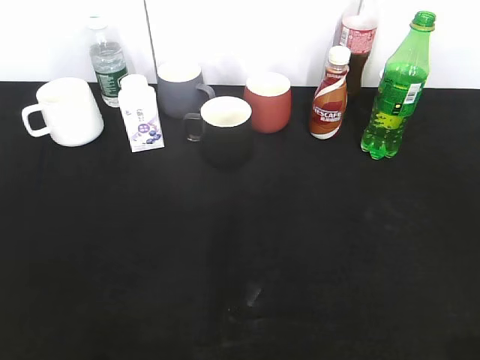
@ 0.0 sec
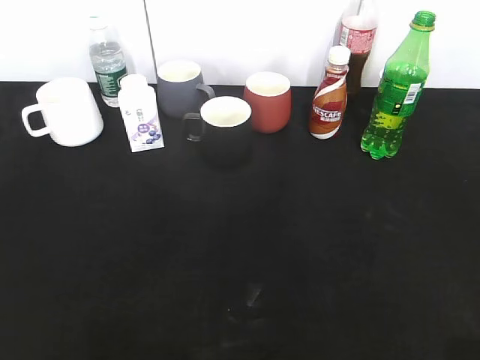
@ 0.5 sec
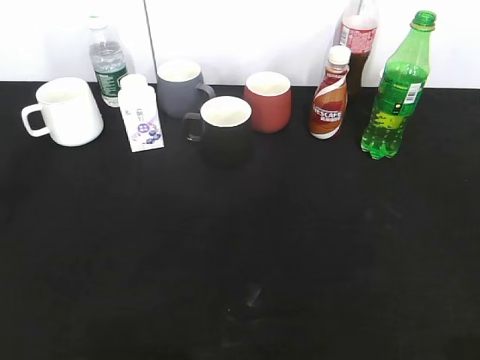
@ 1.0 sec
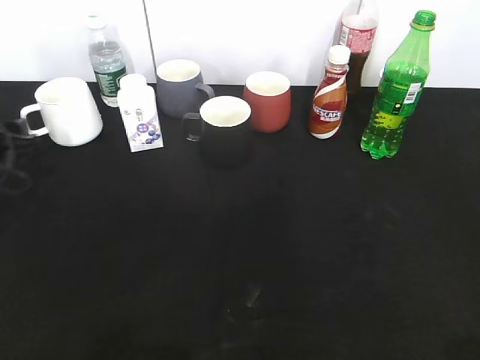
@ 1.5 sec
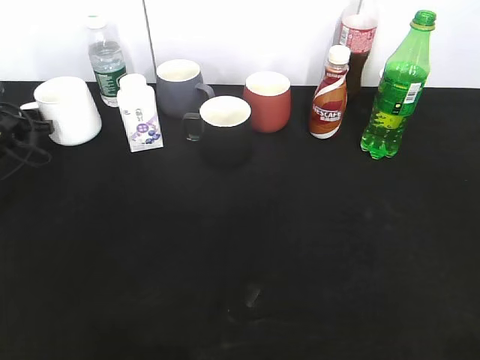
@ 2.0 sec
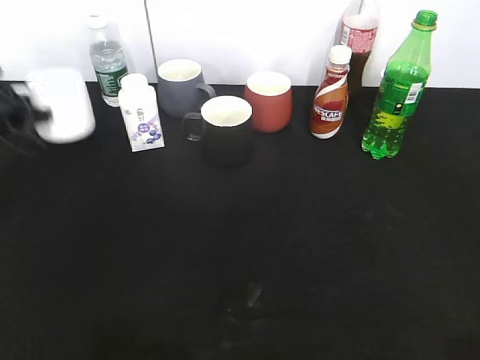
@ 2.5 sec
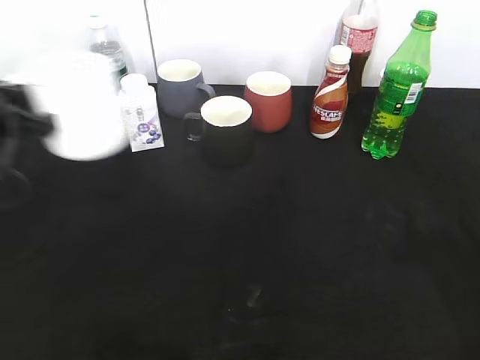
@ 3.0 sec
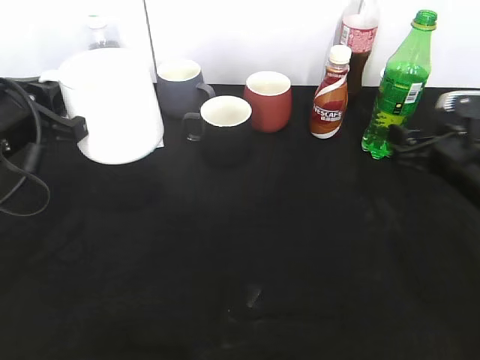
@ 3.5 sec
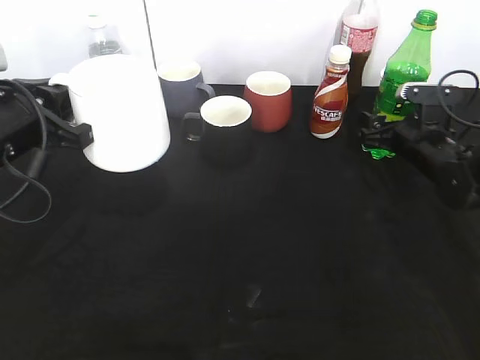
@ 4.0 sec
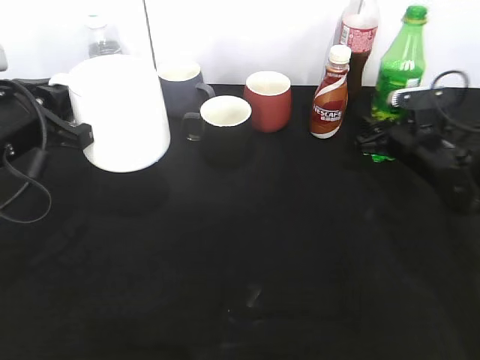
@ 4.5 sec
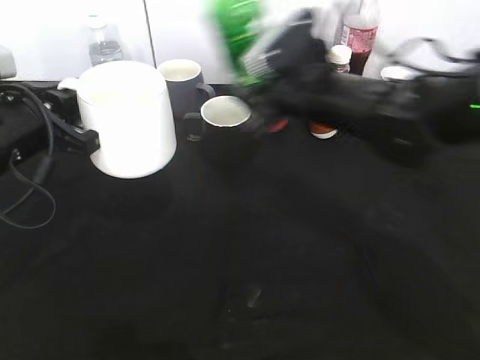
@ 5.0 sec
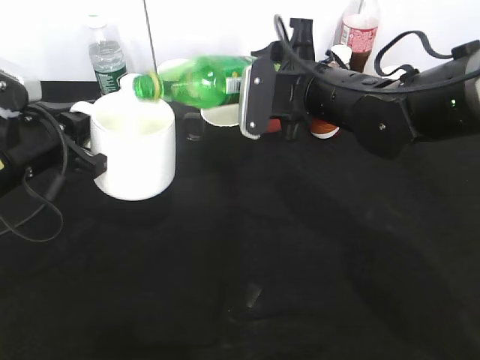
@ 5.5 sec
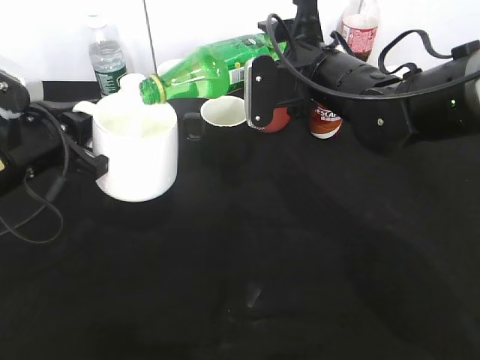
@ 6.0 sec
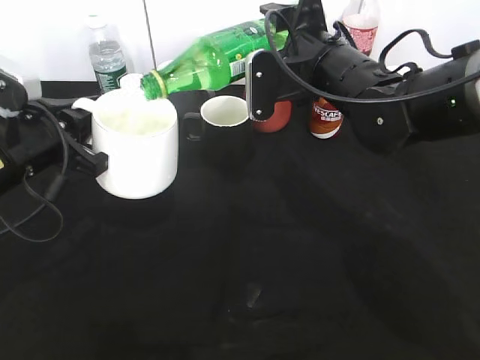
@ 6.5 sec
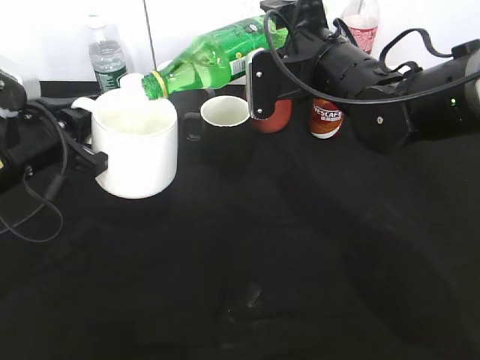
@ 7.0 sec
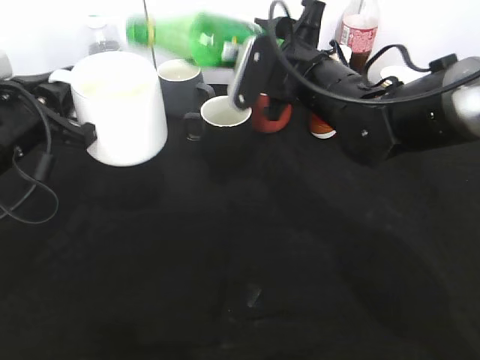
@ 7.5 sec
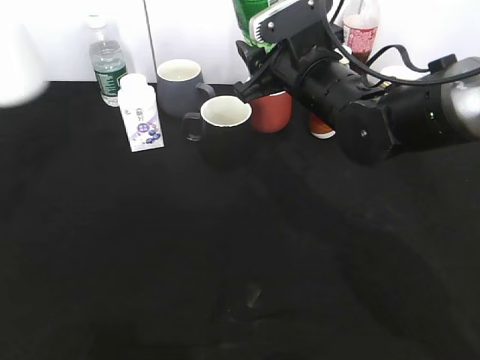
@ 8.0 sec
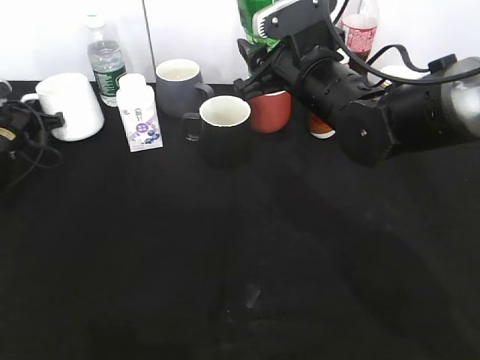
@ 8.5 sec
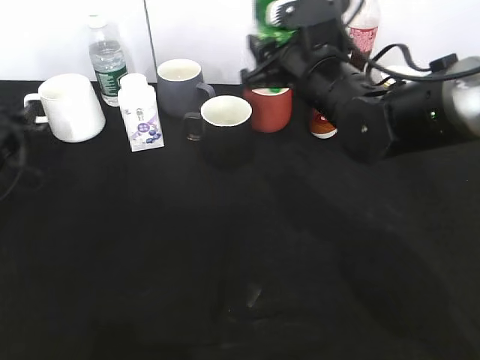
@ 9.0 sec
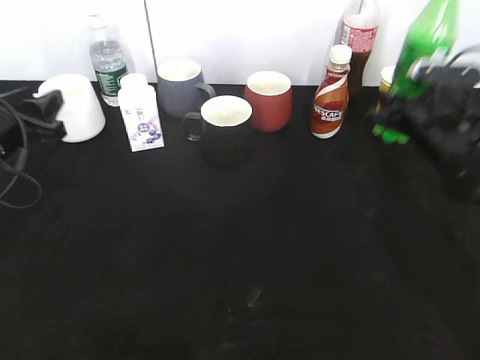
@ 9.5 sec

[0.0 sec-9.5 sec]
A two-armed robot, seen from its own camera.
Step, 0.0 sec to 2.0 sec: Grasp the white cup with left gripper.
Step, 2.5 sec to 3.0 sec: Lift the white cup with left gripper.
Step, 3.5 sec to 4.0 sec: Grasp the bottle with sprite with right gripper.
Step, 4.5 sec to 7.5 sec: Pour the sprite from bottle to cup with right gripper.
Step, 8.0 sec to 8.5 sec: Place the white cup on the table with left gripper.
0.0 sec to 2.0 sec: The left gripper moves forward and downward, approximately 50 cm.
2.0 sec to 4.0 sec: The right gripper heads forward and downward, covering some 50 cm. Meanwhile the left gripper moves backward, upward and to the right, some 25 cm, and closes.
4.0 sec to 5.5 sec: The right gripper moves to the left and upward, approximately 20 cm, and closes.
7.5 sec to 9.5 sec: The right gripper shifts some 20 cm to the right and downward. The left gripper is displaced to the left by about 5 cm, reaches approximately 20 cm forward, then returns, and opens.

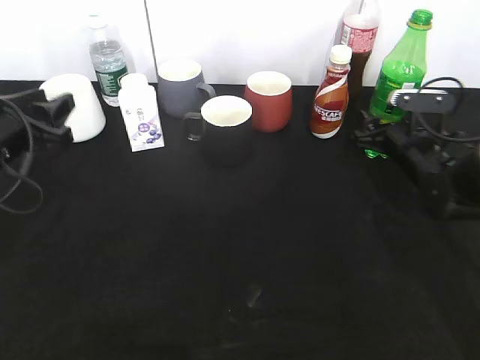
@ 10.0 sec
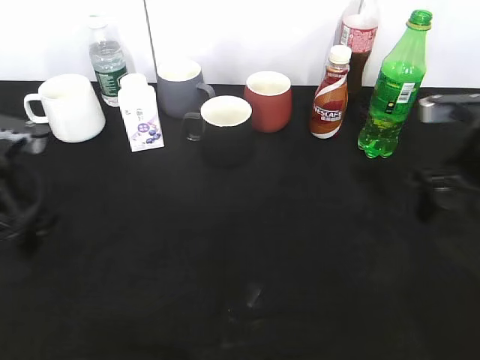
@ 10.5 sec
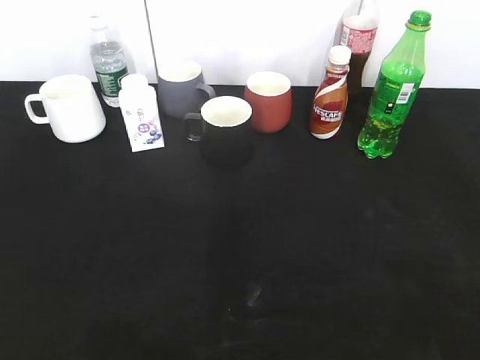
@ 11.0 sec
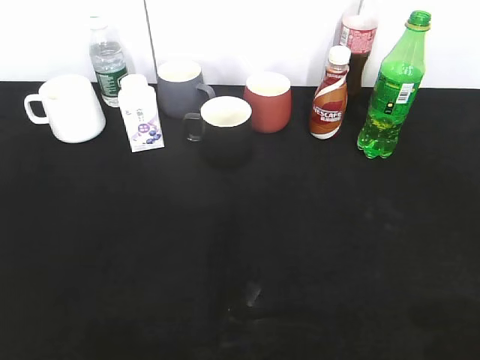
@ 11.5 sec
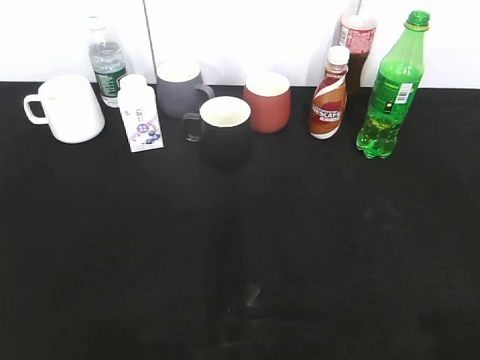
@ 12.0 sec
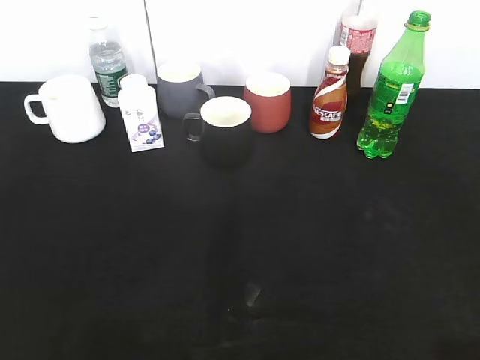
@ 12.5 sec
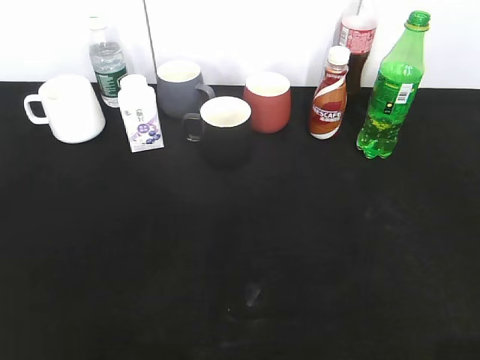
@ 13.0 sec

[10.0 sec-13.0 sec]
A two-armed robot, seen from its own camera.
10.0 sec to 11.5 sec: The grippers both shift backward and upward by approximately 35 cm.

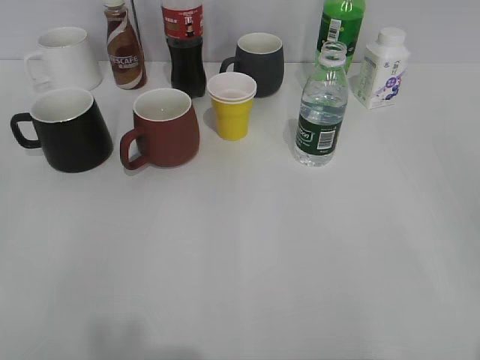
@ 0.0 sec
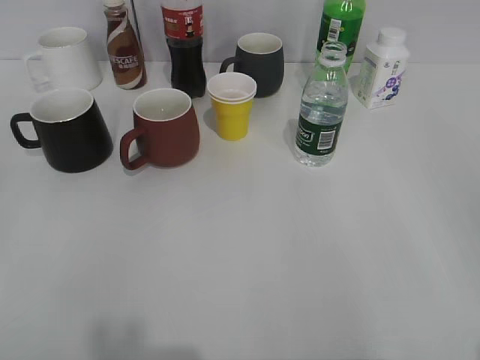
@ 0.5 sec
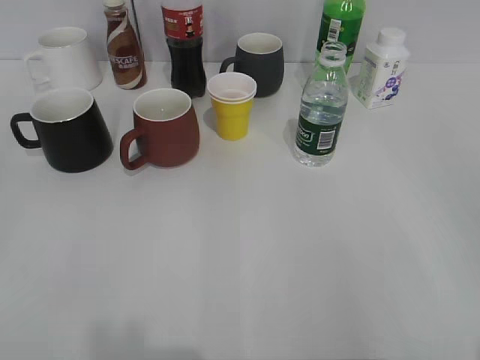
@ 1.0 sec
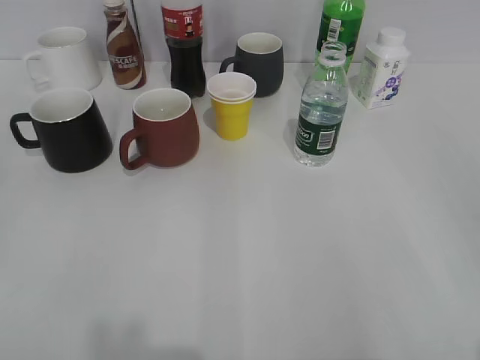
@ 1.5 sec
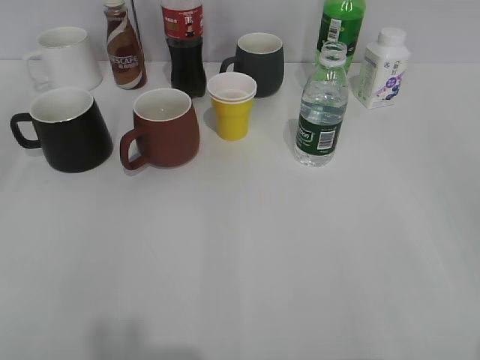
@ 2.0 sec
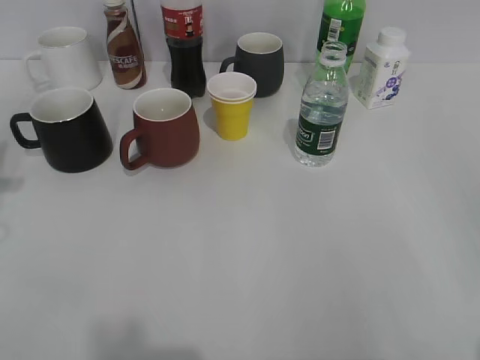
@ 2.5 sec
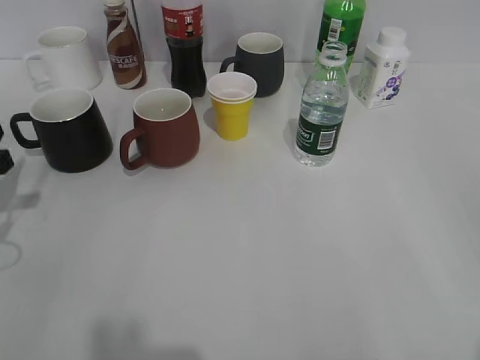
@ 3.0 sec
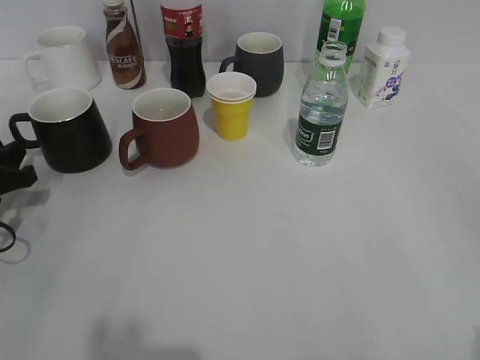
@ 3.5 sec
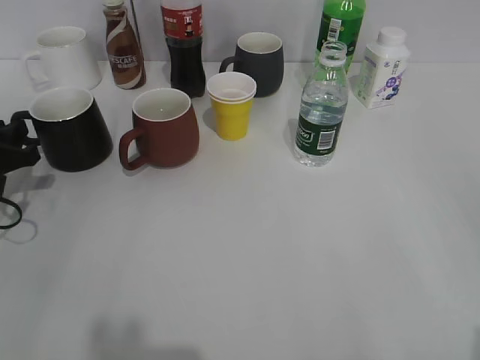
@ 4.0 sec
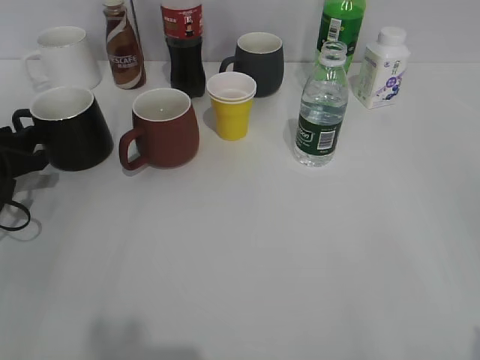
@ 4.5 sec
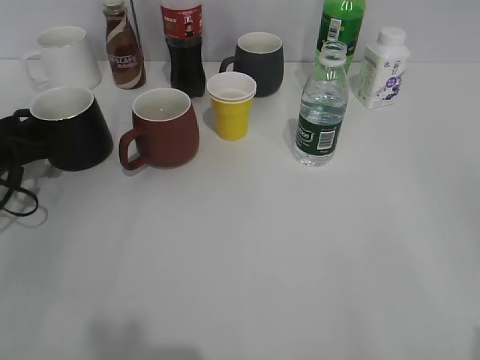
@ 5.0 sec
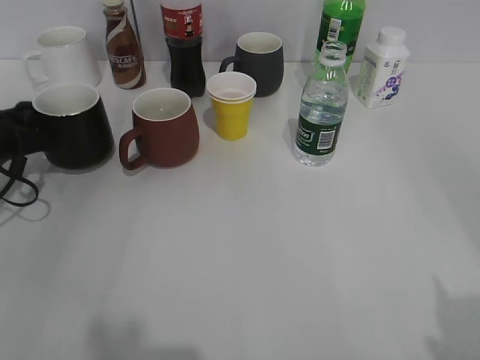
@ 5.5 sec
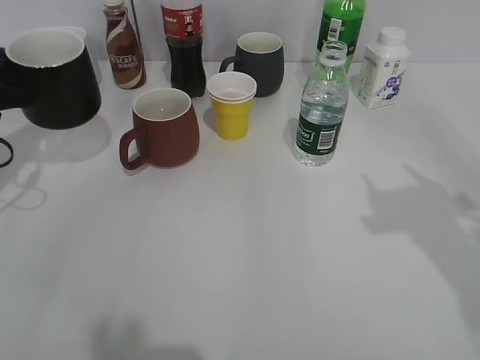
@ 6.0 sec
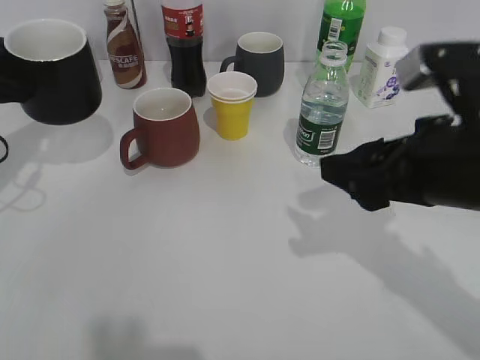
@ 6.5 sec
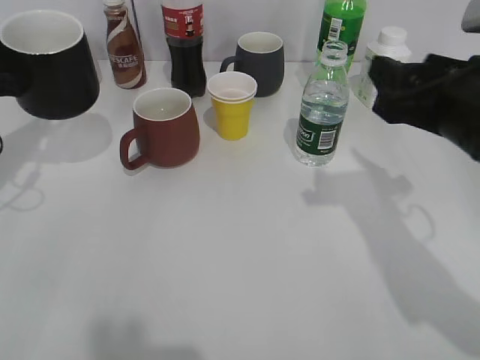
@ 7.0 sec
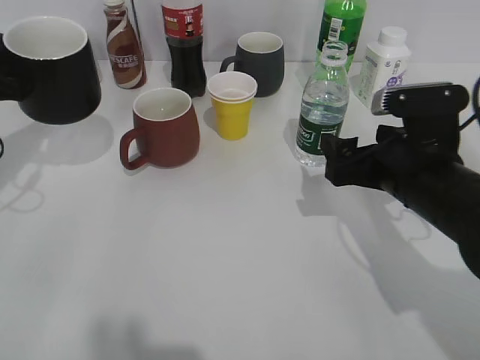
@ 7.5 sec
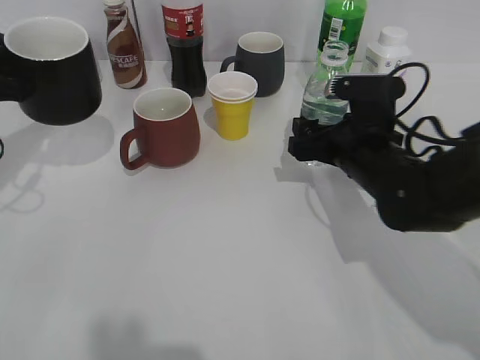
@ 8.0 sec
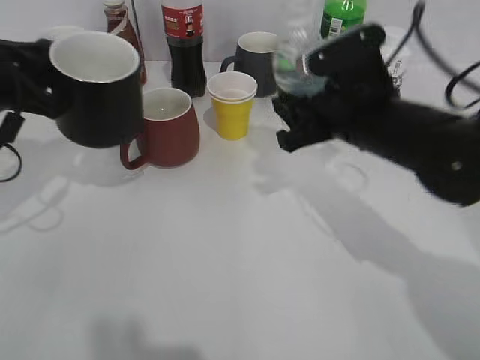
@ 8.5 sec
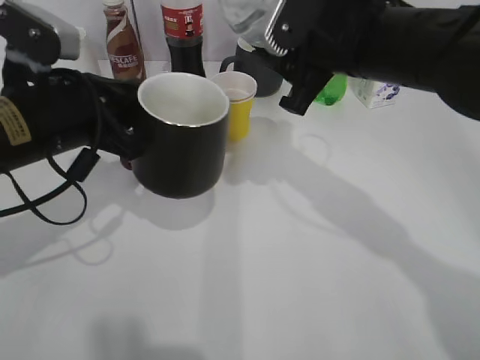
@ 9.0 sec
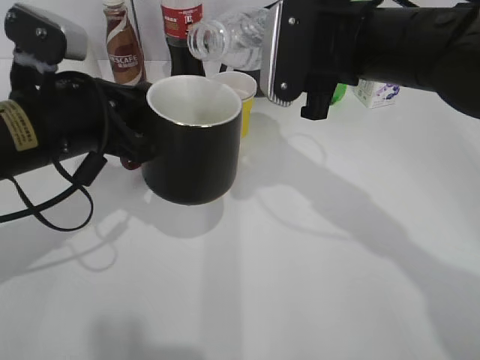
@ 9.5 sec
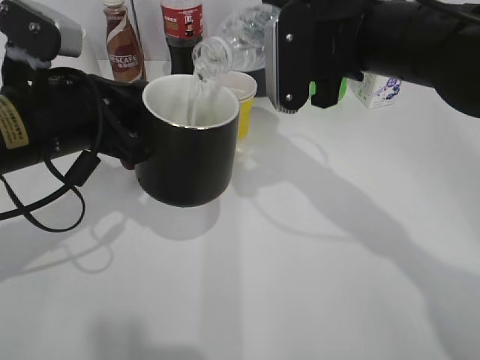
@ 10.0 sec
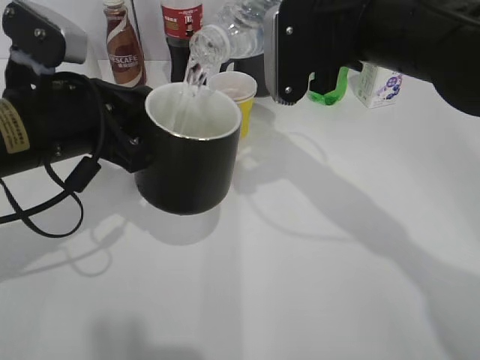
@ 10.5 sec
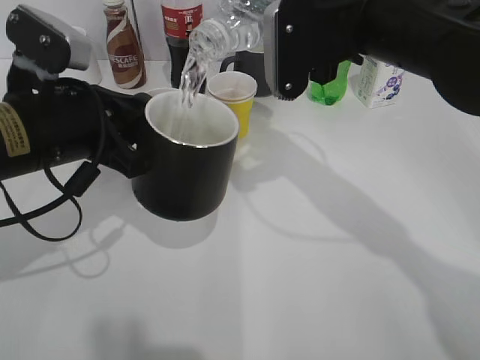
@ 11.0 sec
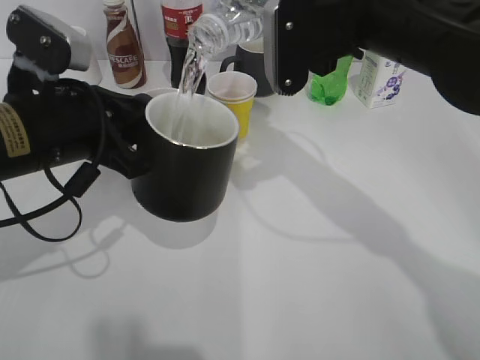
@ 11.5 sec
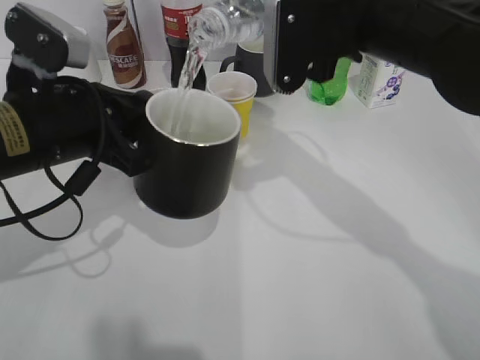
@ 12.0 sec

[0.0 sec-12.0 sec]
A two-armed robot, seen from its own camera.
Step, 1.5 sec to 5.0 sec: Grasp the black cup with left gripper.
Step, 5.5 sec to 7.0 sec: Lift the black cup with left gripper.
Step, 7.5 sec to 8.0 sec: Grasp the bottle with water with right gripper.
2.0 sec to 4.0 sec: The left gripper heads forward and downward, covering some 35 cm.
4.0 sec to 6.0 sec: The left gripper shifts about 5 cm upward, and closes up.
6.0 sec to 8.0 sec: The right gripper heads downward, forward and to the left, covering some 30 cm, and opens up.
8.0 sec to 10.0 sec: The left gripper shifts roughly 15 cm to the right and backward. The right gripper heads upward, covering some 15 cm, and closes its fingers.
10.0 sec to 12.0 sec: The grippers make only small movements.
